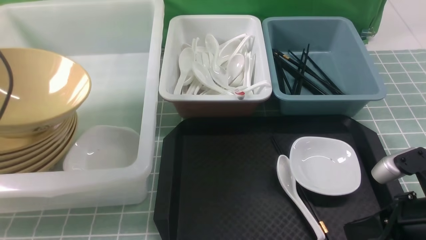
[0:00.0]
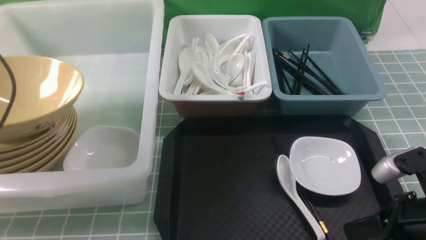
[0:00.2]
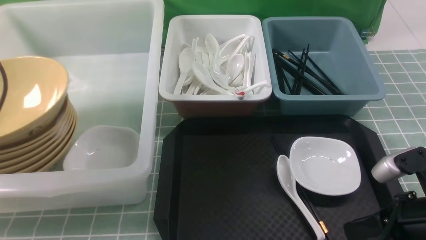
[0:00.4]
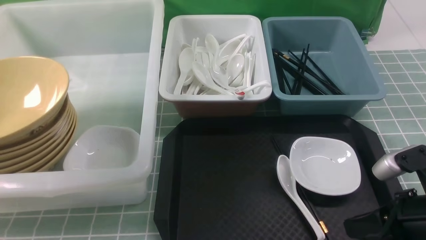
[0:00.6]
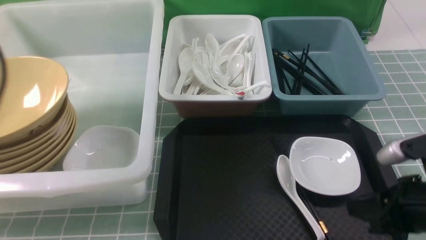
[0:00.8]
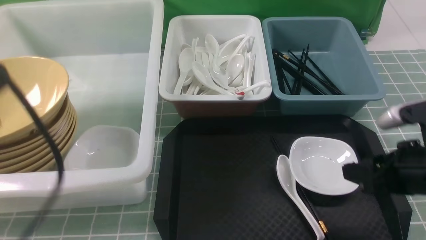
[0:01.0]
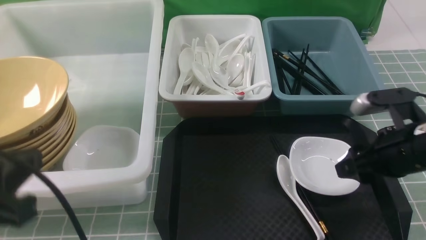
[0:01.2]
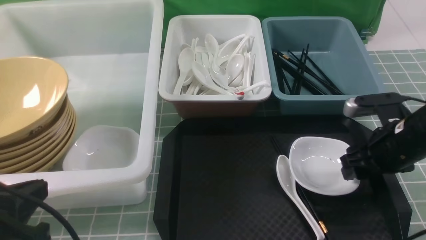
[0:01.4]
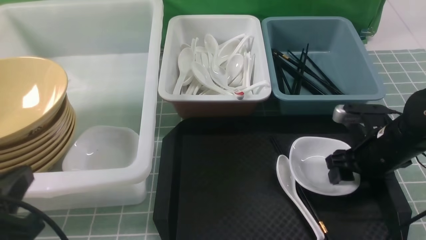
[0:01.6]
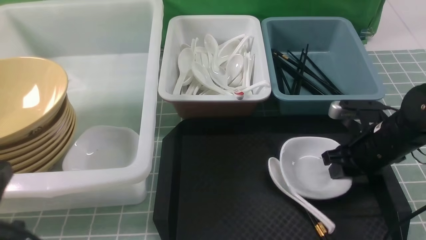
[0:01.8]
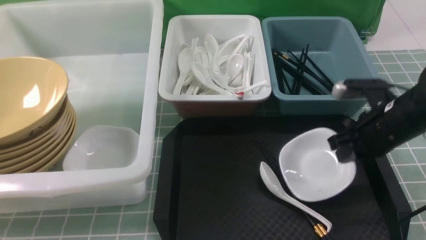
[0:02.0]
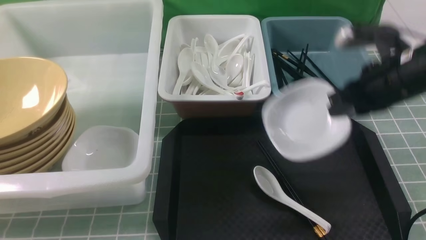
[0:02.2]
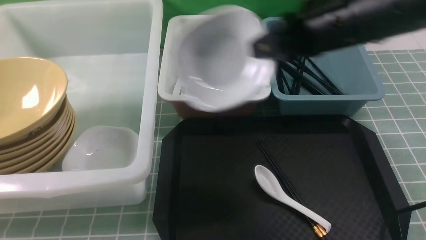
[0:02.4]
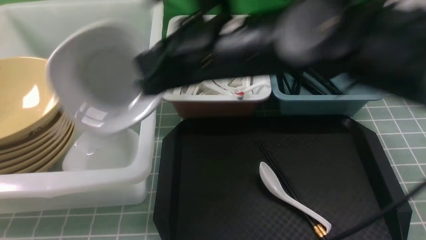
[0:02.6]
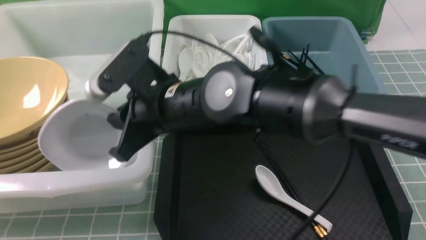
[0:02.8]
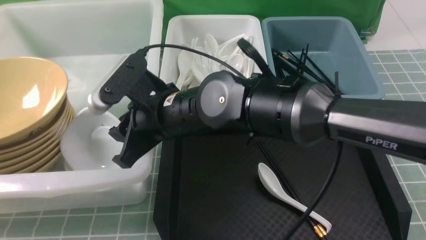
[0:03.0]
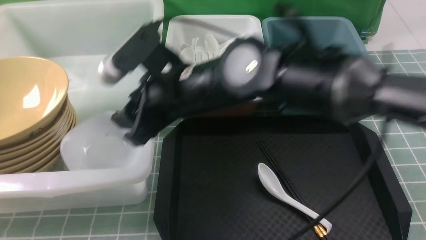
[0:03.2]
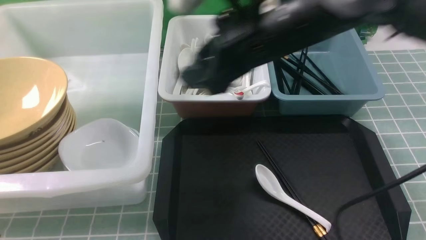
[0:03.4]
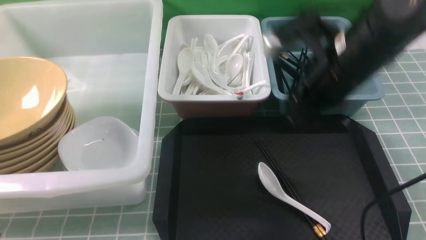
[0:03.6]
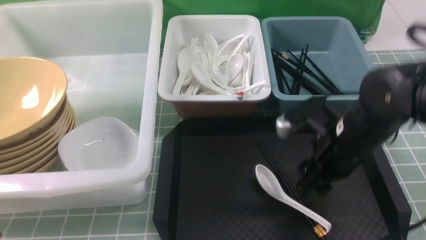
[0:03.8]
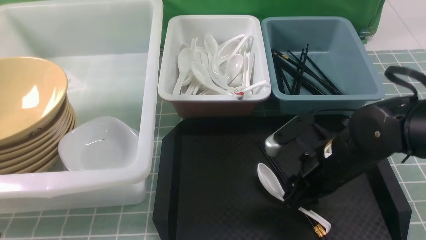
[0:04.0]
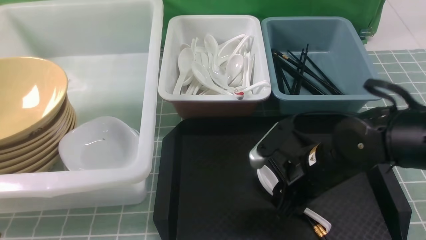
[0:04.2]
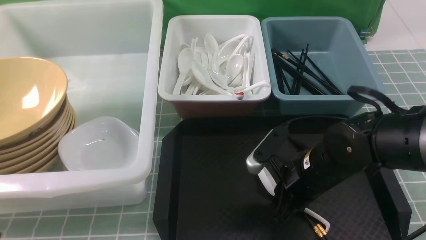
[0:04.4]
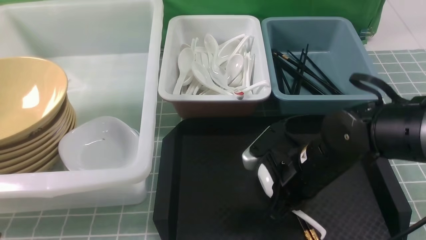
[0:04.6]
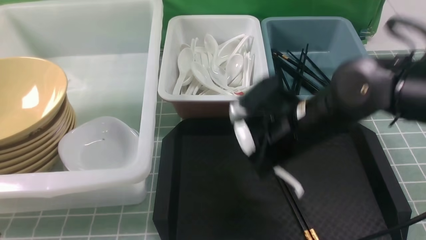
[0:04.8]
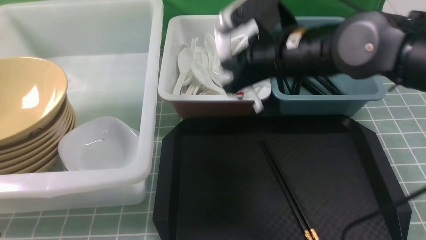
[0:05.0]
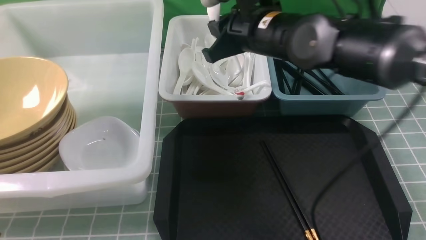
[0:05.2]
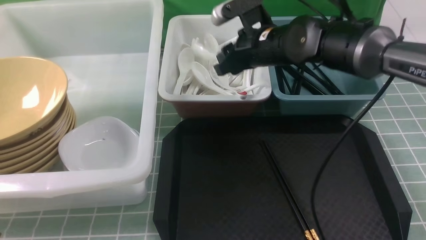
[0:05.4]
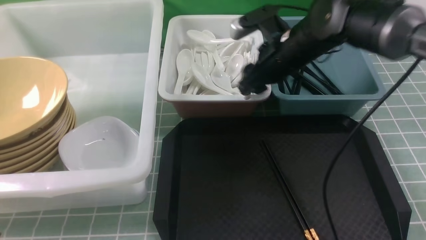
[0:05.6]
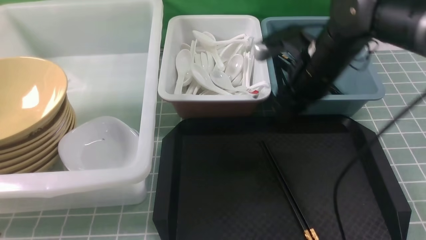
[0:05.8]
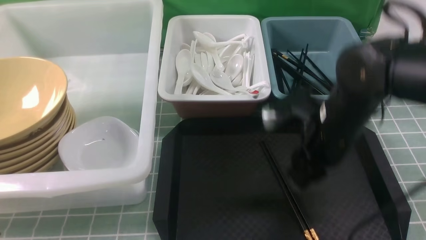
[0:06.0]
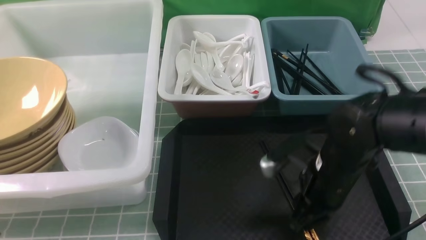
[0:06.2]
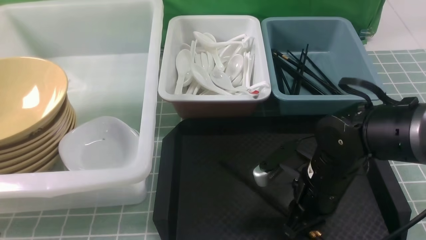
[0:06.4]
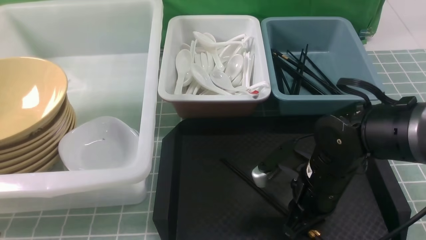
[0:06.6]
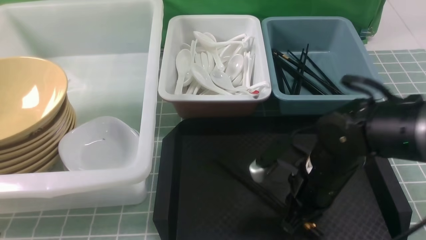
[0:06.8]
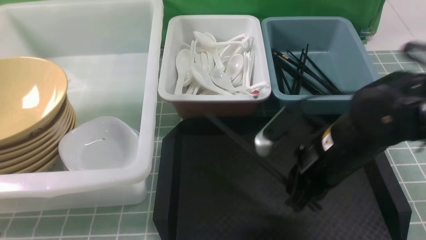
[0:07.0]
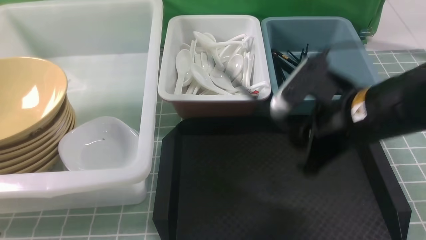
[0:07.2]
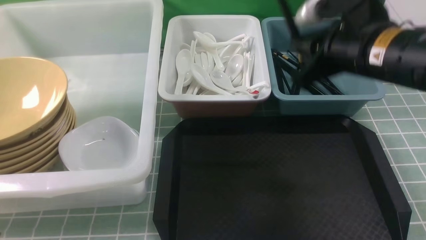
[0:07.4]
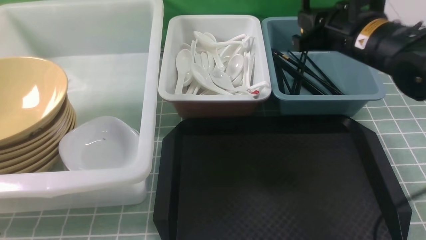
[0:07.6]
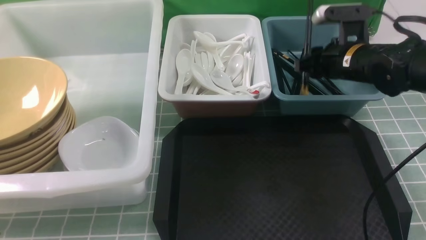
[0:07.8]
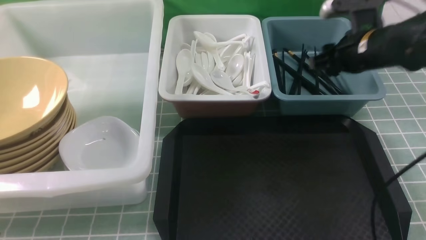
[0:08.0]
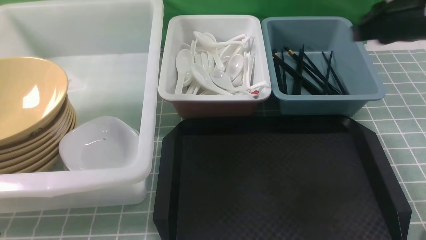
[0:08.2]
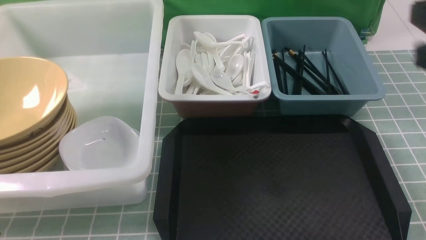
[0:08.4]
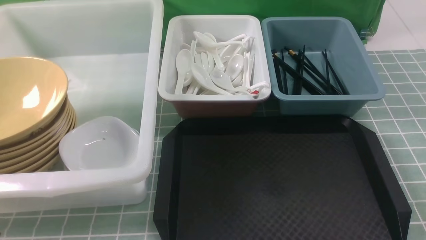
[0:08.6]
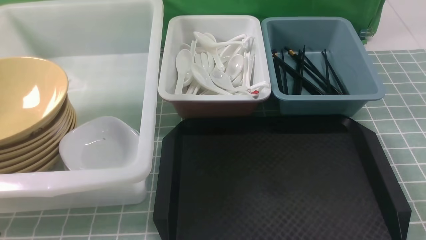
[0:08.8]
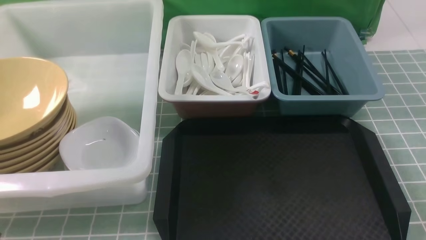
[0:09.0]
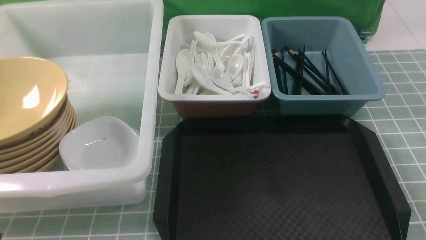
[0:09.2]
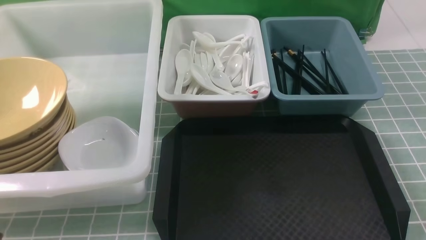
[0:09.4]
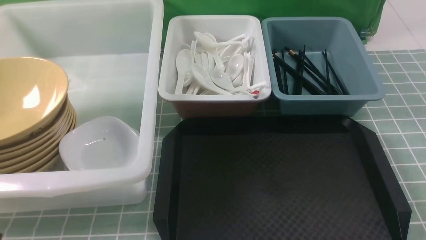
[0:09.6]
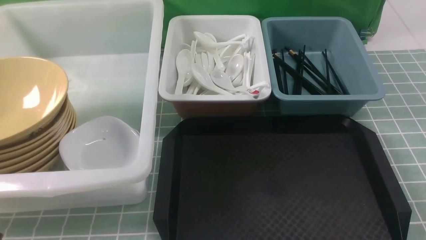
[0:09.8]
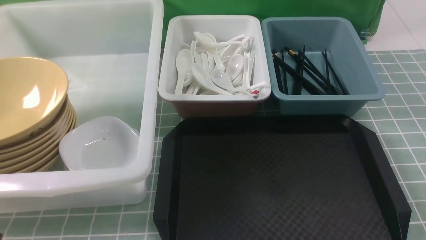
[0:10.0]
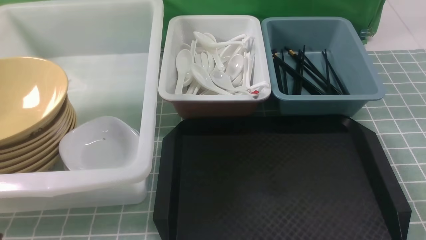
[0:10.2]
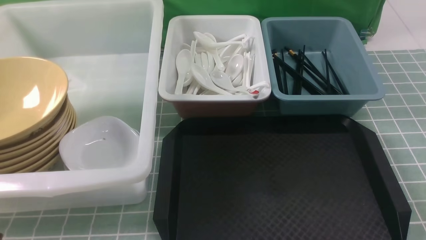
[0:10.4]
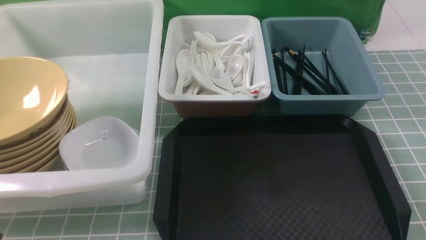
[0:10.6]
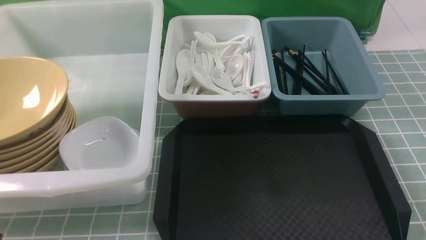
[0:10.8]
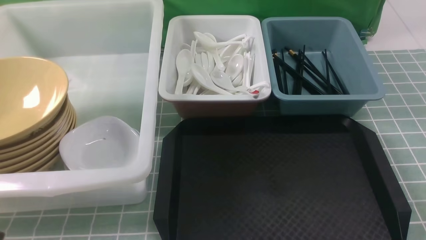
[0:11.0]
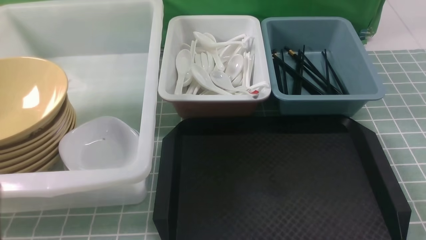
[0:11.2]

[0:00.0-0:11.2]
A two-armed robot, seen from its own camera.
Task of the whole recording: on blue table put chopsticks spoon bowls plates into blue grey white boxes.
Step, 0:00.8 to 0:02.0: use the right arm to grab the plate.
Step, 0:02.2 to 0:03.4: use the right arm to put the plate into the large storage box on the left.
Step, 0:03.6 to 0:04.6: use the right arm to grab the soup spoon in the middle.
Step, 0:04.8 to 0:05.4: use the right arm to put the soup spoon into the small storage box in the middle.
Step, 0:05.8 to 0:06.8: use the right arm to grab the chopsticks.
Step, 0:07.0 to 0:08.0: use the right arm to put the chopsticks into the small storage box on the right.
0:00.0 to 0:01.6: The left gripper heads backward and to the right, covering approximately 20 cm, and closes up. The right gripper travels forward by roughly 15 cm, and opens.
0:01.6 to 0:03.2: The right gripper heads to the left and upward, covering roughly 30 cm, and closes and opens again.
0:03.2 to 0:04.8: The right gripper heads to the right and downward, covering approximately 10 cm, and closes its fingers.
0:04.8 to 0:06.4: The right gripper travels downward by approximately 10 cm, goes forward and returns, roughly 10 cm each way, and opens, then closes again.
0:06.4 to 0:08.0: The right gripper moves up and down over approximately 15 cm, changing direction 2 times.
0:08.0 to 0:09.6: The right gripper is displaced backward by roughly 30 cm, and closes its fingers.

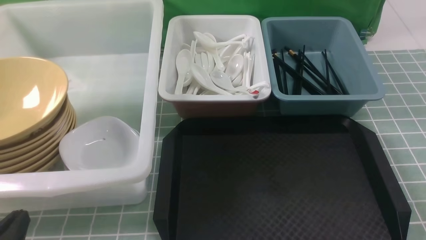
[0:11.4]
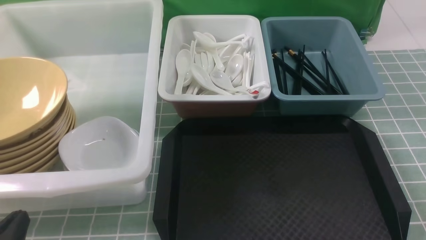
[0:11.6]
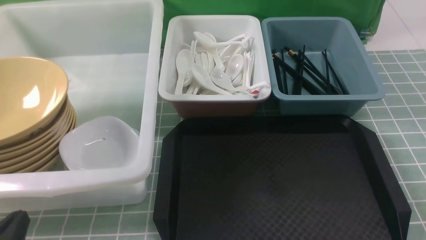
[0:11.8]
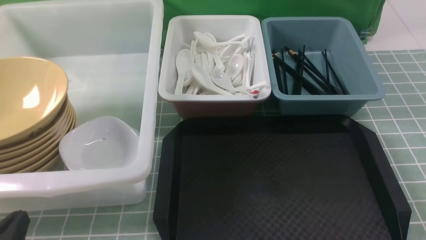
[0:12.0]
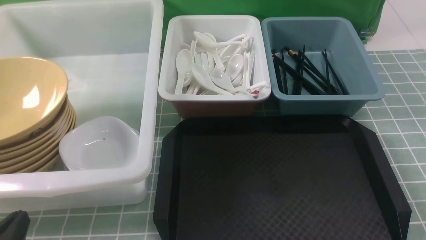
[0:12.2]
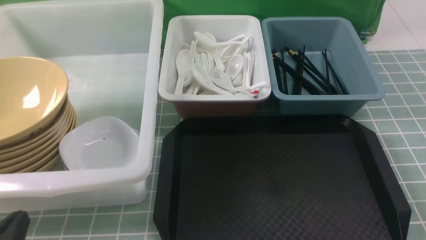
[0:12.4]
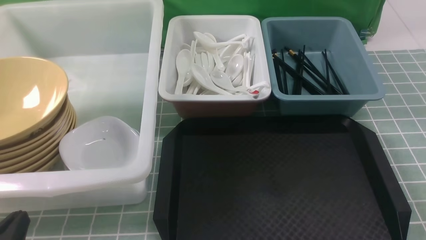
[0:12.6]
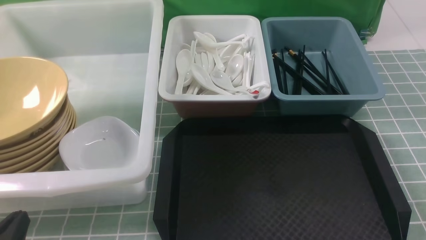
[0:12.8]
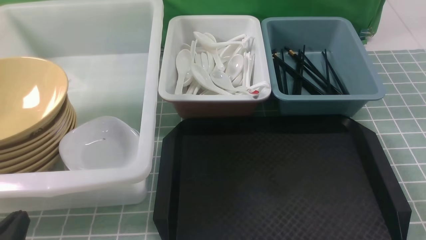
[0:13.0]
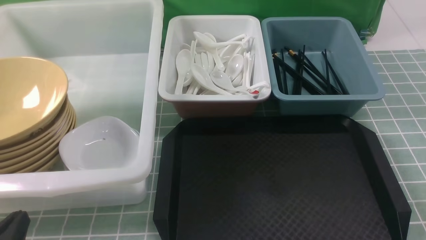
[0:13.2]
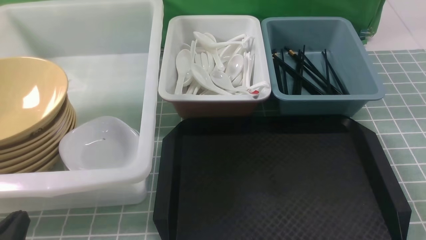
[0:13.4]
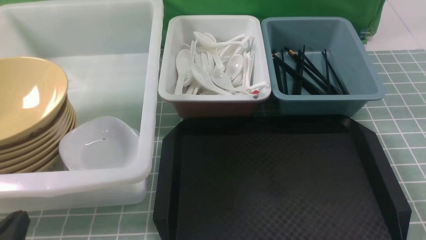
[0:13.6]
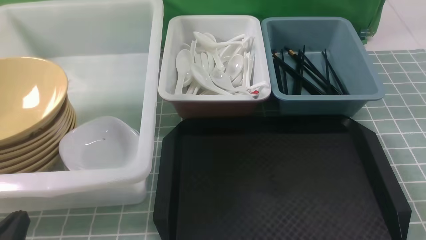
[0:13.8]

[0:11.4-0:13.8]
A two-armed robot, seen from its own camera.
Task of the whole recording: on blue table put chopsticks spoon bowls plates into blue grey white boxes.
0:12.6 to 0:13.8: Both grippers stay put.

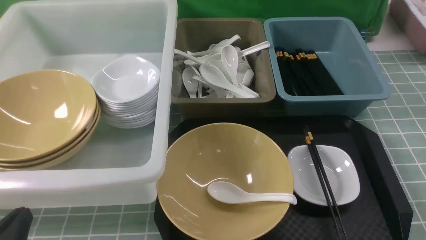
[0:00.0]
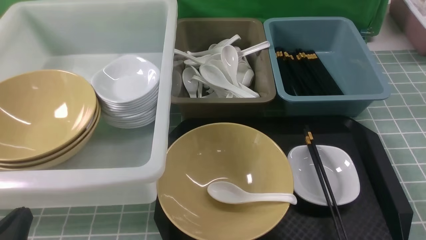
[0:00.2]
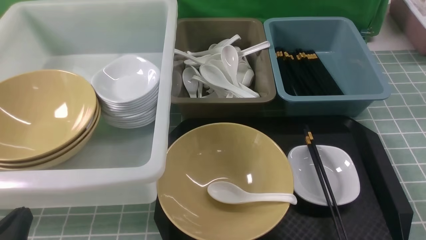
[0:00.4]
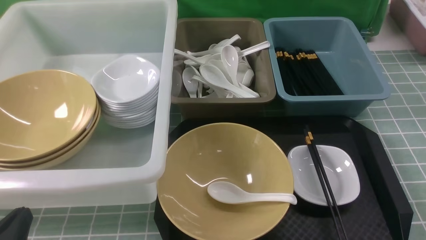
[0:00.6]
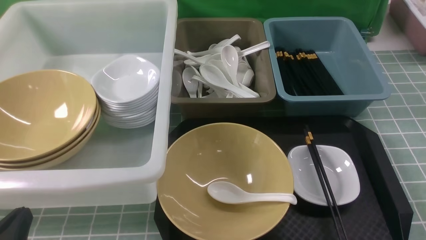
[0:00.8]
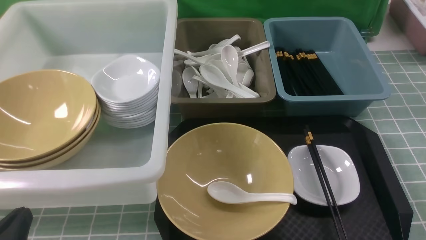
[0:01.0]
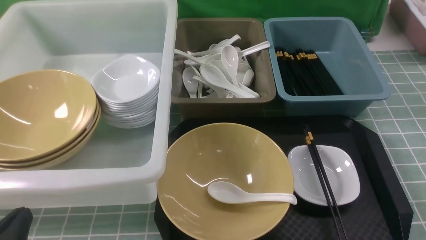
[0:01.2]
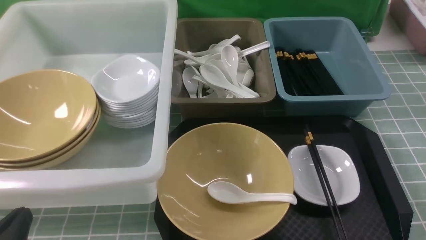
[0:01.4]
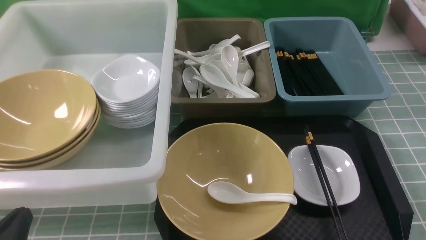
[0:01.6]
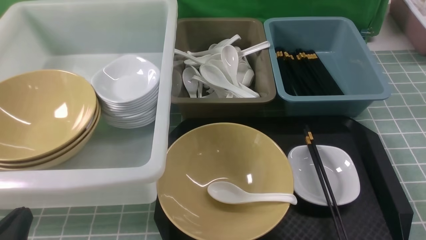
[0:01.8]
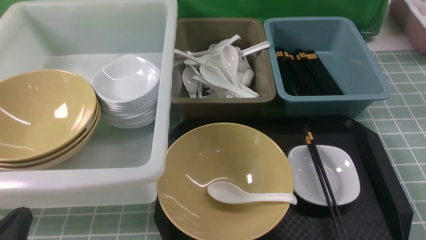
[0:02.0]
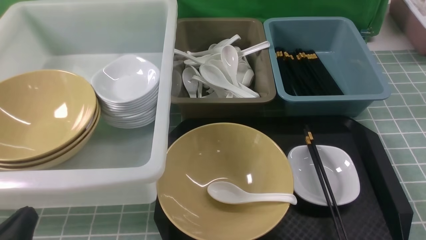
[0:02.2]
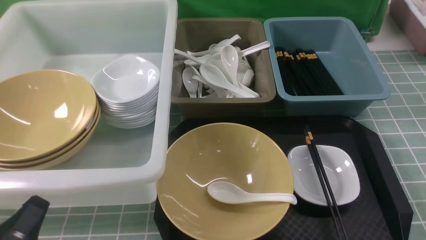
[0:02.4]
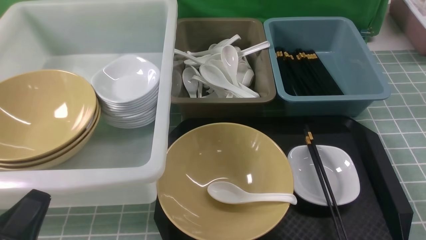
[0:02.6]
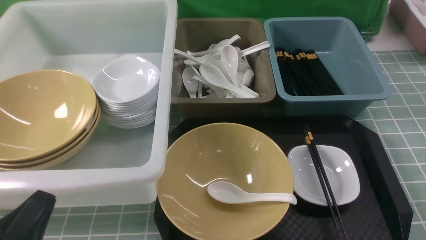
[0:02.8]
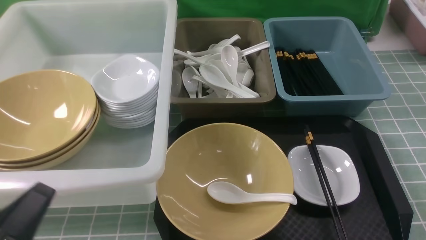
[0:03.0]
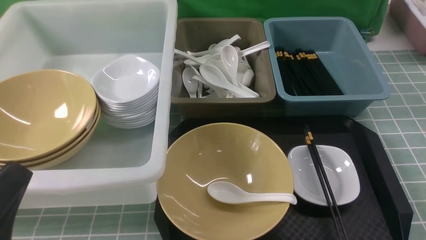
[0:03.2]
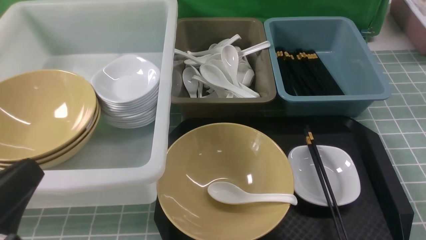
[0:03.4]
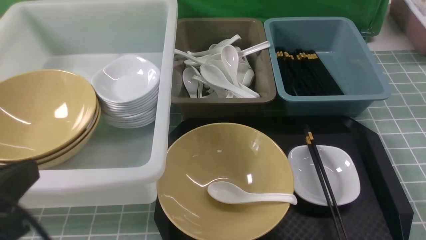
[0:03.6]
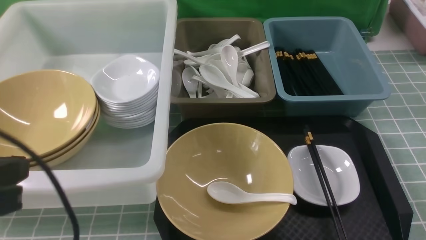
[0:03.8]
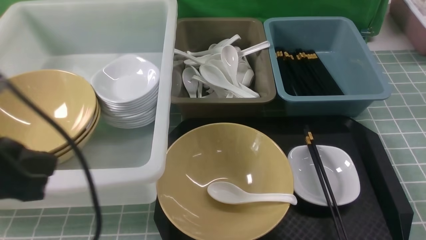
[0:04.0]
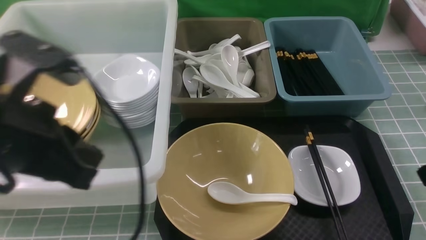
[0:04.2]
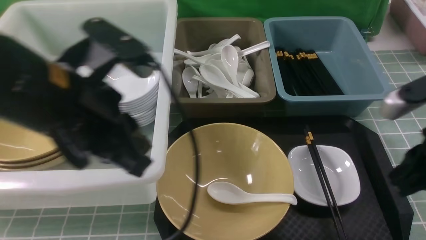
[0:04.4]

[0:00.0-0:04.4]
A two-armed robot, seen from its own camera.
Task of the whole recording: on blue table put chopsticks spoon bowls plates into blue grey white boxes.
0:03.0 to 0:04.4: The right gripper is displaced upward, forward and to the left by approximately 20 cm, and closes up, while the left gripper moves upward, forward and to the right, some 20 cm.
